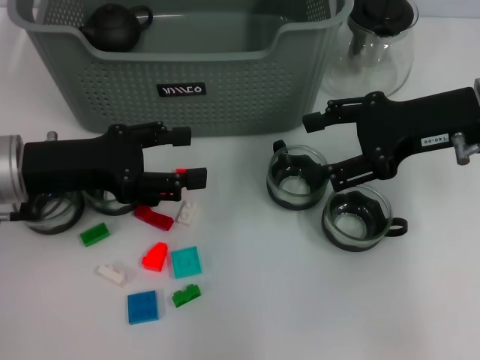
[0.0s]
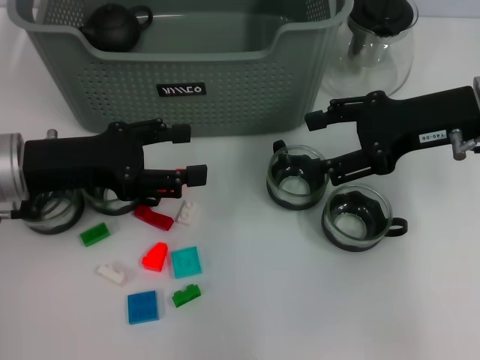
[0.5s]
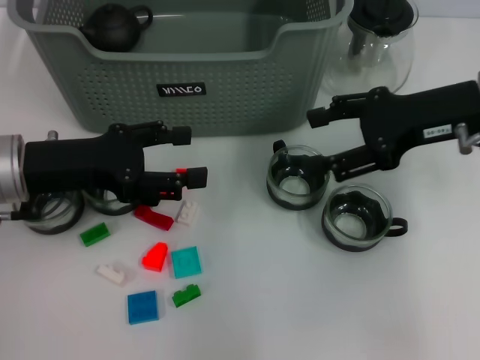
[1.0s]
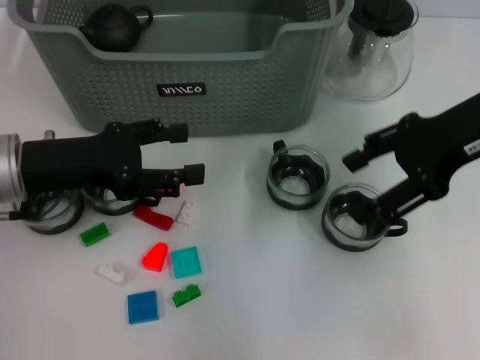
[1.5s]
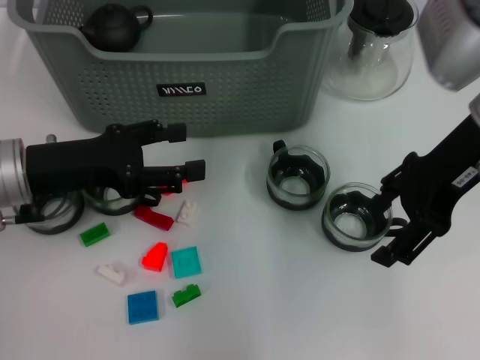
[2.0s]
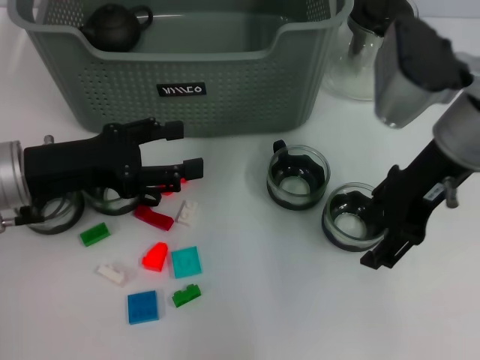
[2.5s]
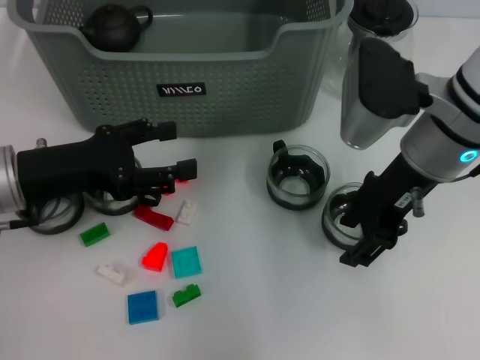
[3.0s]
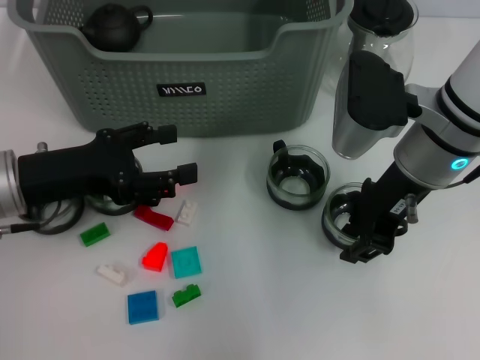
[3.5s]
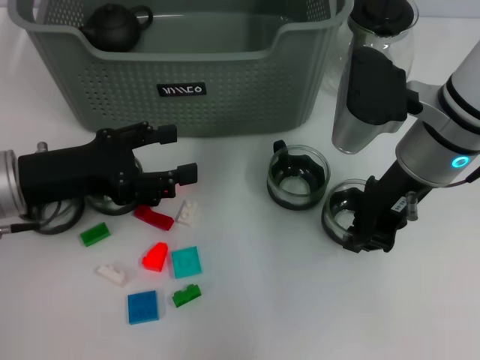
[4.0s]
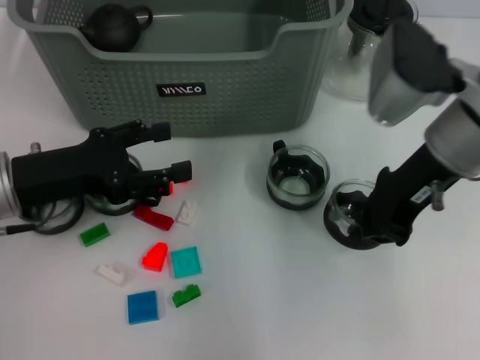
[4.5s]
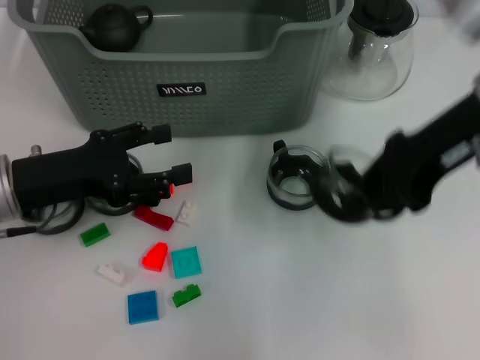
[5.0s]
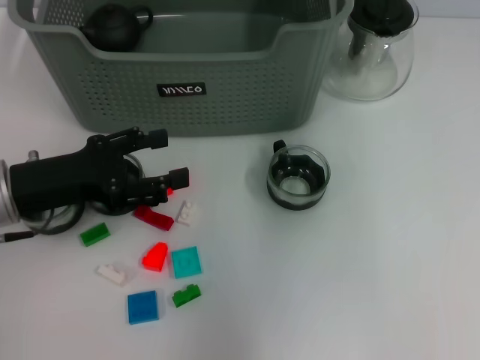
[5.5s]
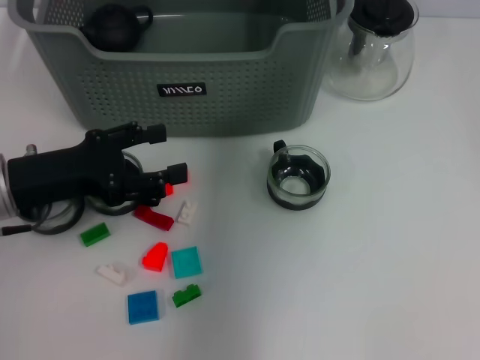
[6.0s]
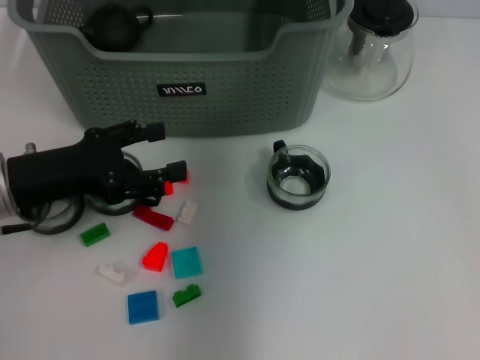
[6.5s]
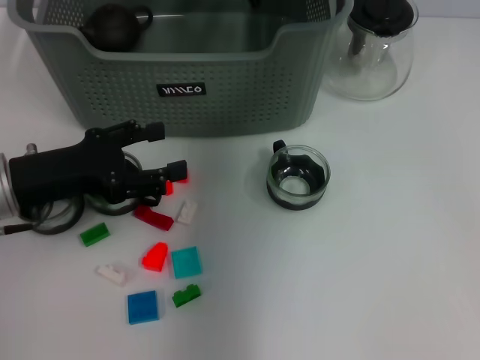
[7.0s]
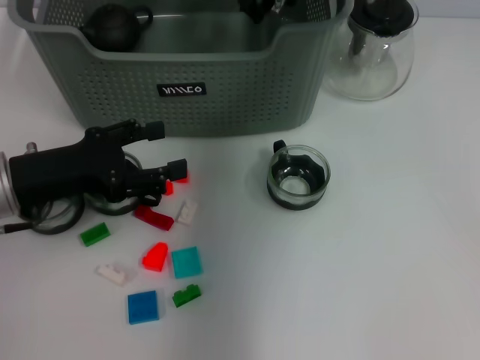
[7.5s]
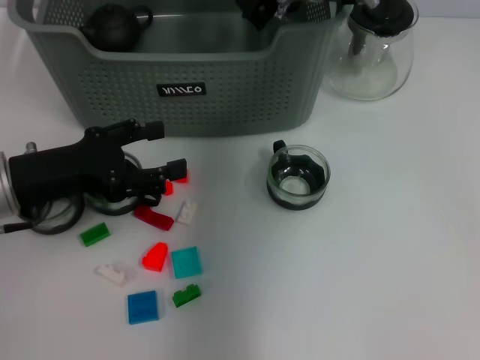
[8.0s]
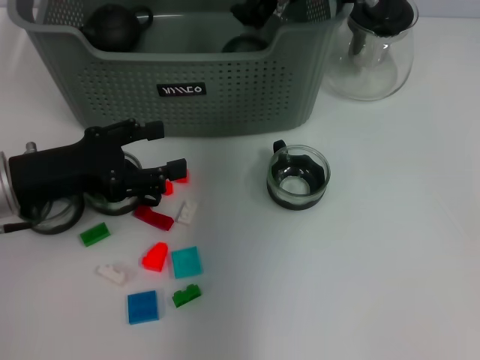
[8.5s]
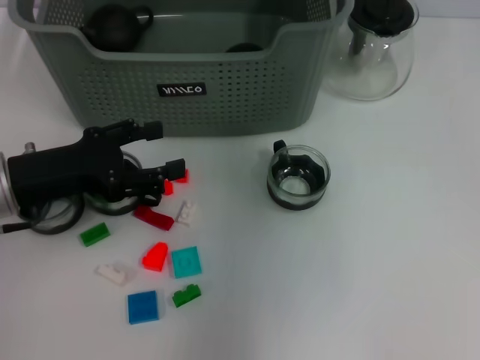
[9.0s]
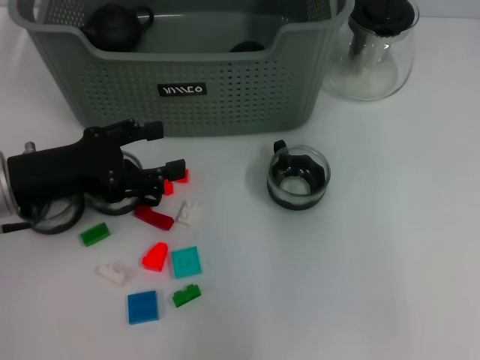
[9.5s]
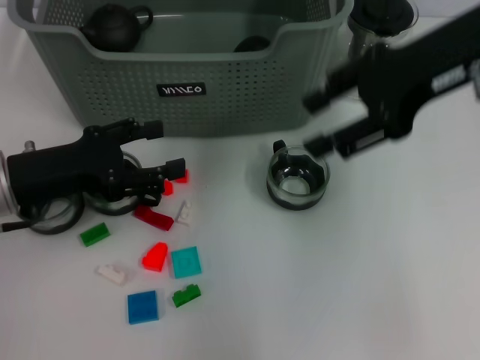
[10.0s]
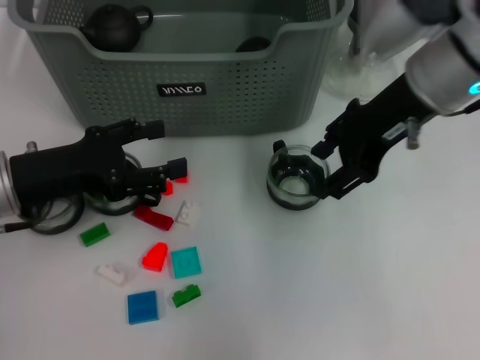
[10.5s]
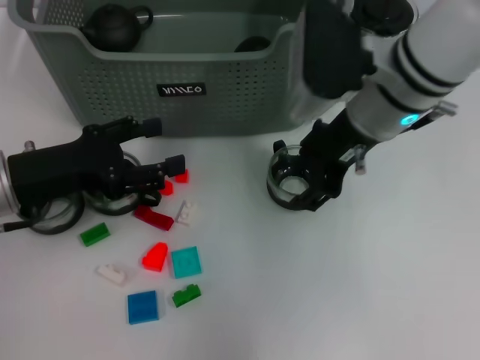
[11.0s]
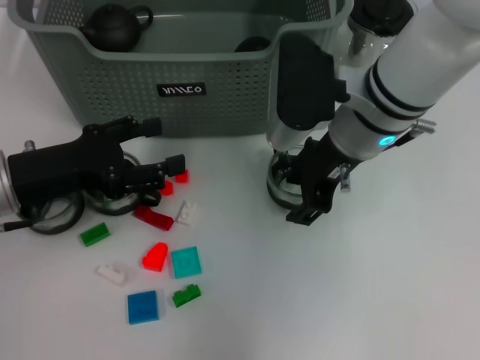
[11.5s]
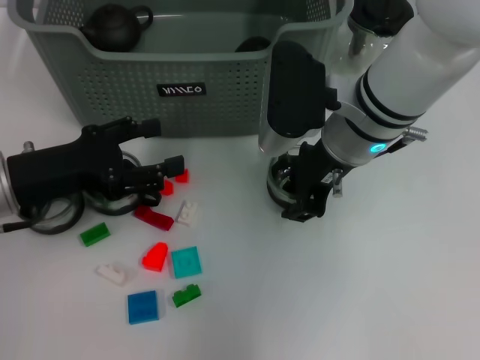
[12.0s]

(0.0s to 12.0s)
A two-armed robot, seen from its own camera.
Task of the whole recording: pick up the teacup on the table and place it into the storage bin, pick up the block on the table and place it into the storage bin.
Step, 0.0s - 3.5s: Grasp the cup with right gripper.
Step, 4.0s - 8.5s: Place the cup in the storage box with right gripper.
0.0s - 2.0s: The right gripper moves some 5 cm.
2.0s - 4.0s: The right gripper travels downward by roughly 5 cm, and closes its fingers.
4.0s - 6.0s: The right gripper goes approximately 20 cm upward and forward.
6.0s - 8.0s: The right gripper travels downward by roughly 10 cm.
8.0s - 10.0s: The right gripper travels to the right, backward and upward by about 20 cm, and opens its fingers.
10.0s - 12.0s: The right gripper travels downward and to the left by some 15 cm.

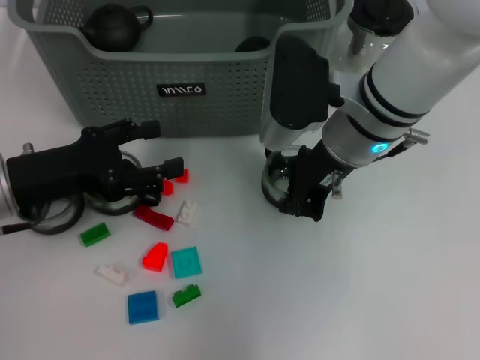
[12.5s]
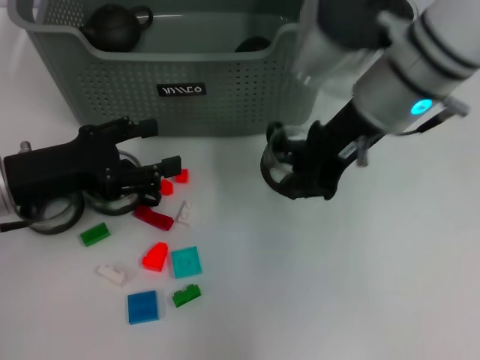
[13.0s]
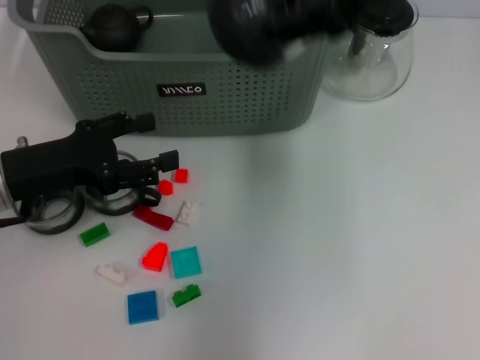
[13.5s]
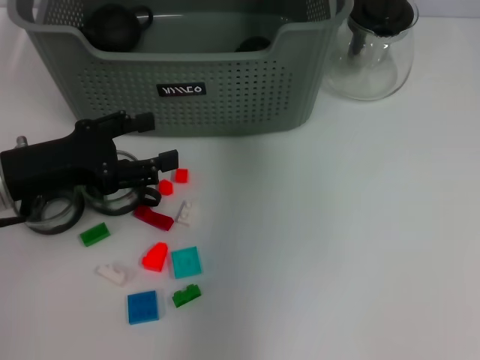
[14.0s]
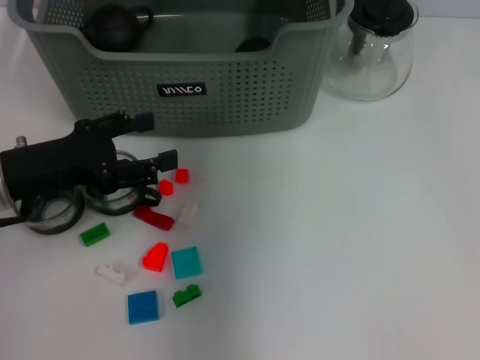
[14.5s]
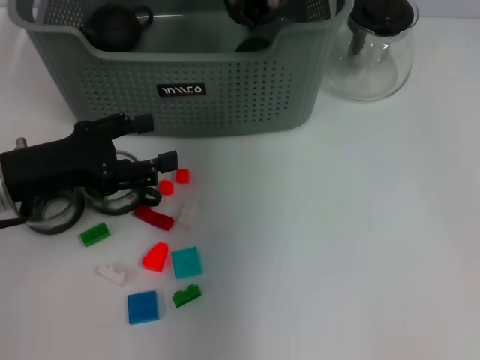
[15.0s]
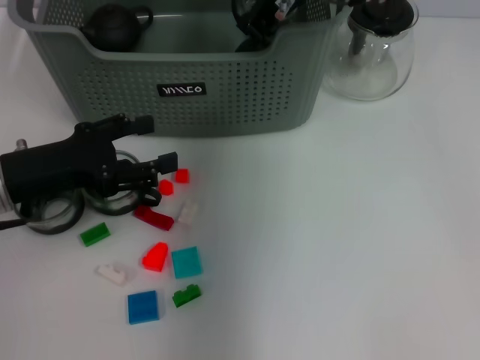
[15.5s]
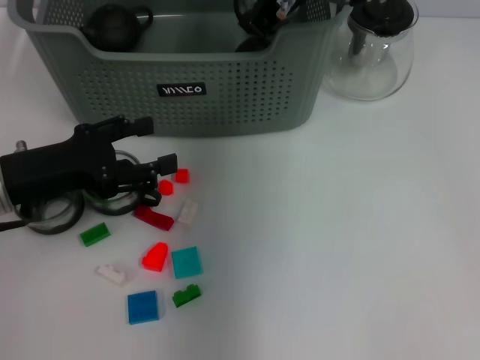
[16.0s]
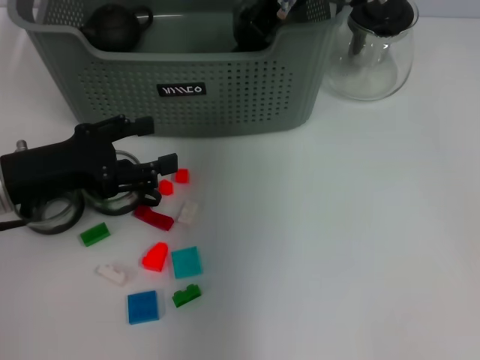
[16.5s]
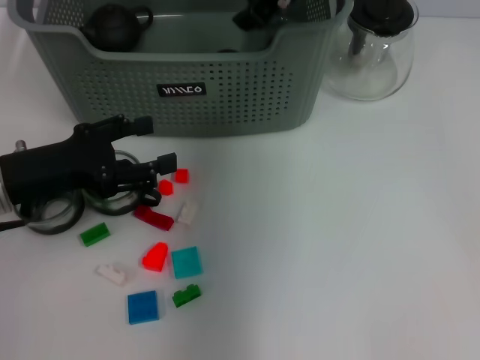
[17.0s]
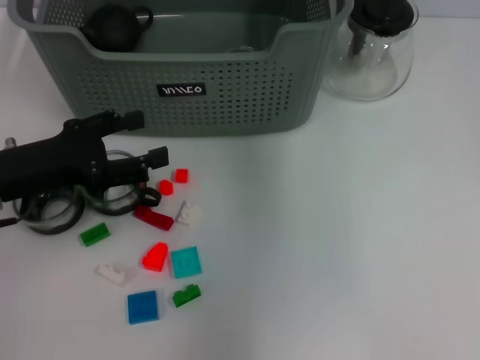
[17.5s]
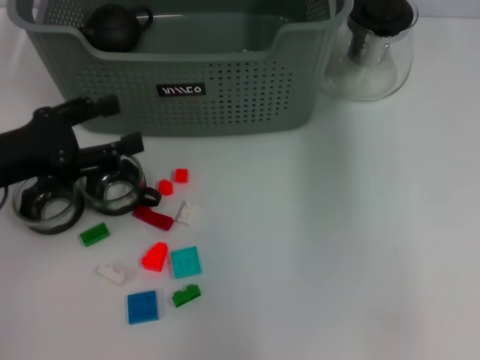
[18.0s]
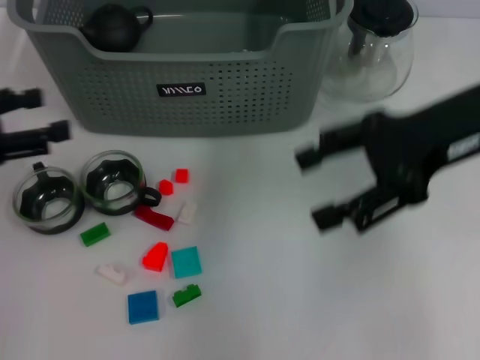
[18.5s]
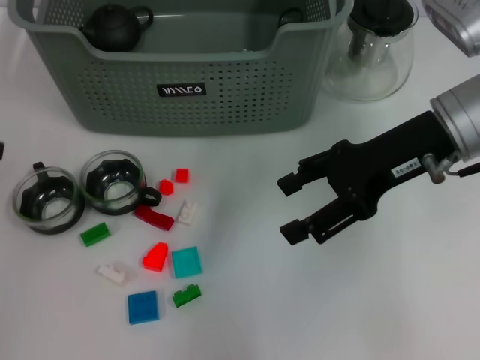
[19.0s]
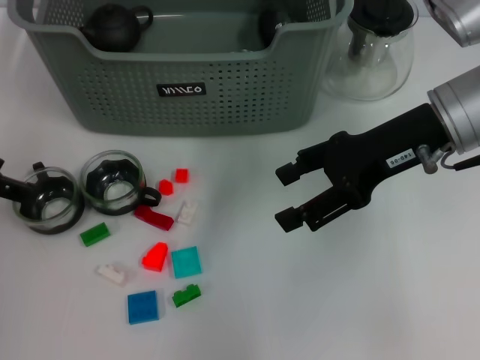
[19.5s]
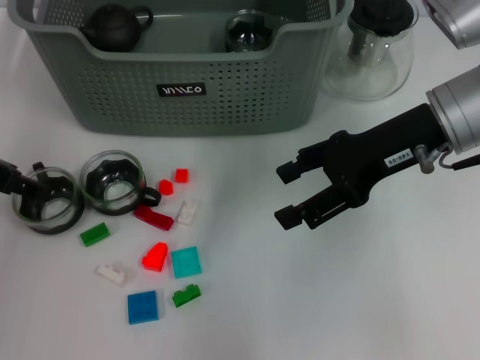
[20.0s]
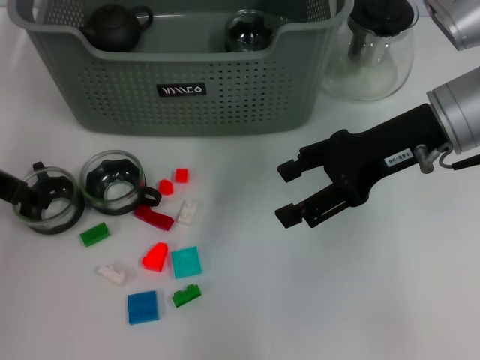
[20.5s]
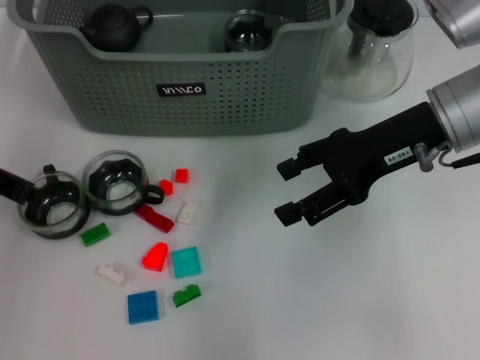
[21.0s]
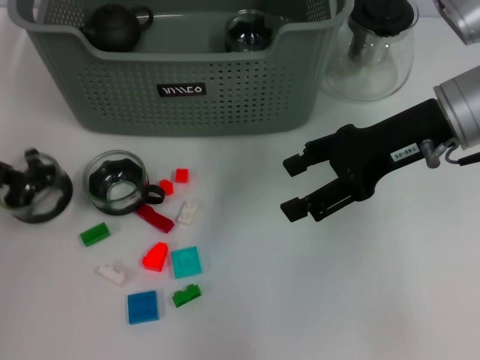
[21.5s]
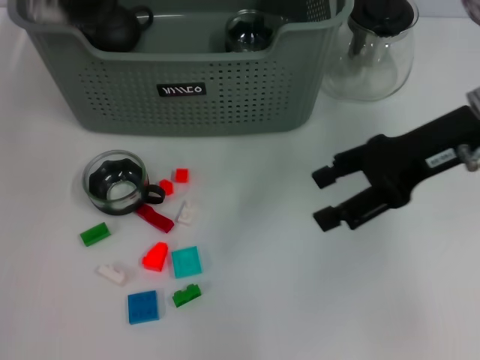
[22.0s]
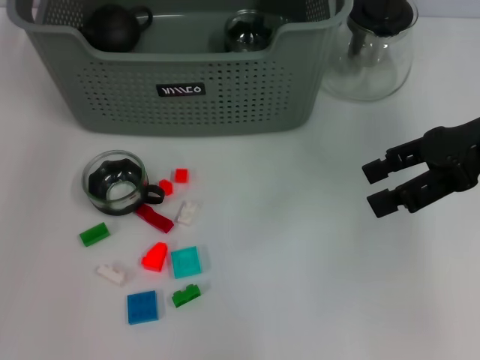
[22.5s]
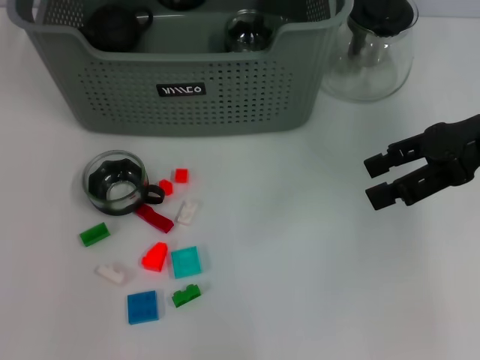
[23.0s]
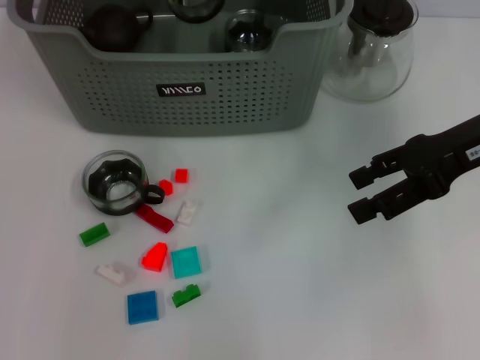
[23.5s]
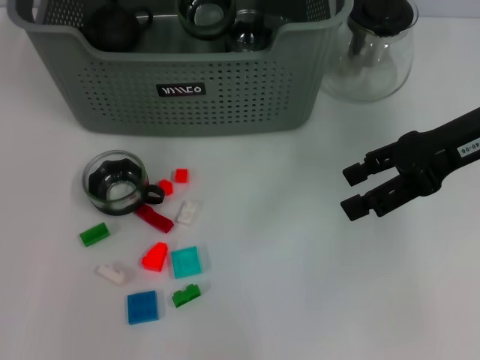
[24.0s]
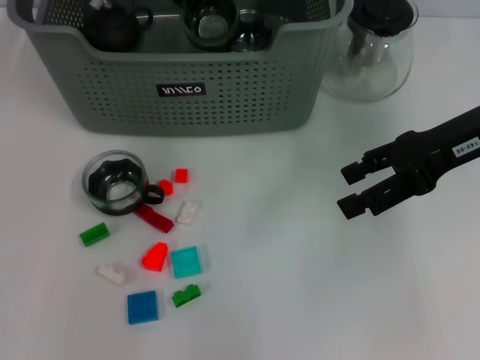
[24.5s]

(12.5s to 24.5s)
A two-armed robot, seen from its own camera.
Task of the whole recording: pick up the teacup on the table and place it into the storage bin, pick up the block on the table and place it into the storage bin.
Step, 13.0s - 17.0s: Place the cup in the storage box with right gripper.
Step, 17.5s - 21.0s: Grasp the cup with left gripper.
12.5s - 14.5s: The right gripper moves upward and forward, approximately 15 cm.
14.5s - 16.5s: The right gripper ends up about 5 cm from where it was.
16.5s - 18.5s: The right gripper travels to the right and backward by about 20 cm, and opens, while the left gripper travels to the left and upward by approximately 10 cm.
18.5s - 20.5s: The left gripper goes about 5 cm forward.
20.5s - 22.5s: The left gripper is displaced upward and forward by roughly 20 cm, and closes; the right gripper travels to the right by some 10 cm.
22.5s - 24.5s: The left gripper moves downward, to the right and forward, approximately 20 cm.

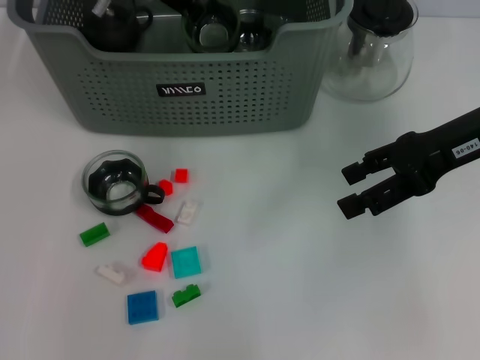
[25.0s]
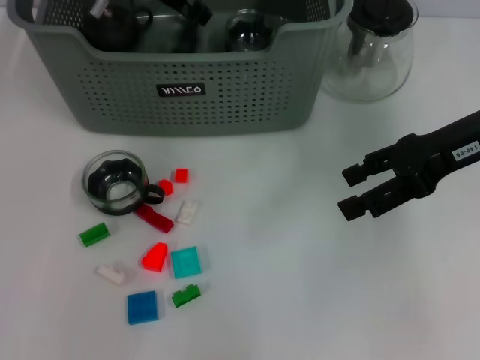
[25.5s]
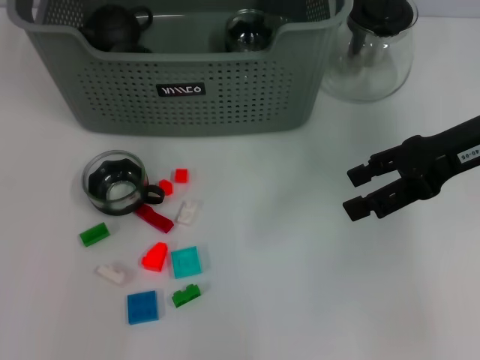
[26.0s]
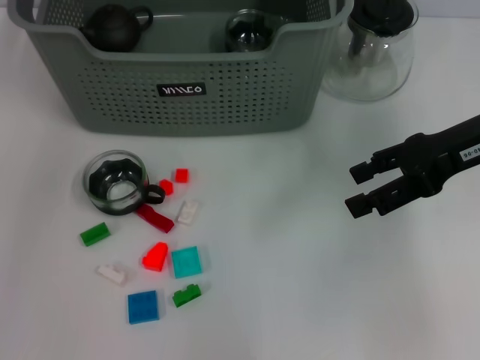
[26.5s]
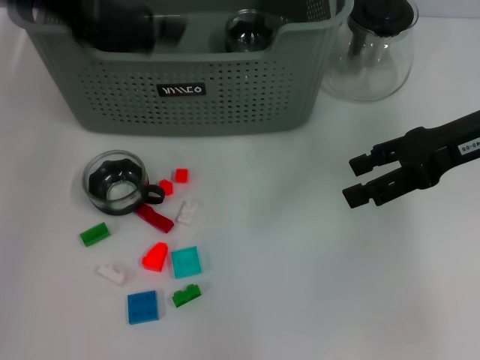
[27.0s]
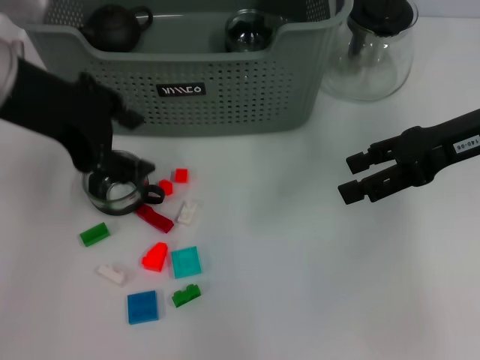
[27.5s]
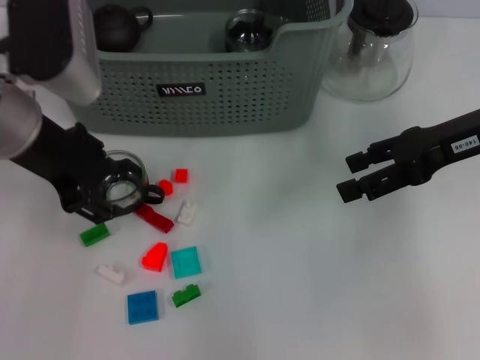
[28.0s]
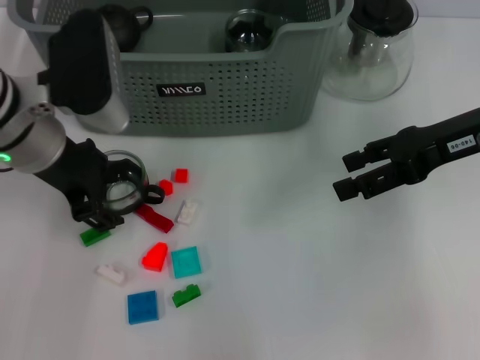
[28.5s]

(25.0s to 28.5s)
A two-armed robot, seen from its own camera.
Task of the whole recording: pick up the teacup on the table and place it into the storage bin, pick up the block on the table and place it into the storage bin.
25.0s - 27.0s: The left gripper shifts roughly 20 cm backward, to the left and upward, and opens up.
27.0s - 28.5s: The left gripper goes approximately 15 cm downward.
